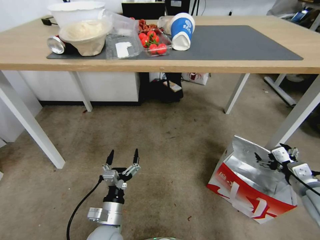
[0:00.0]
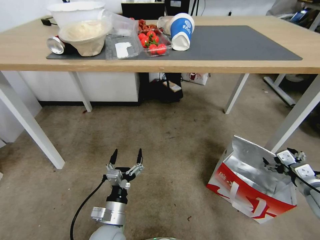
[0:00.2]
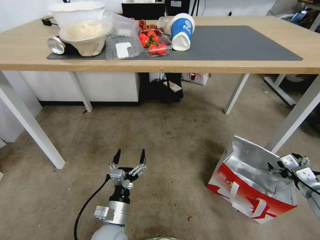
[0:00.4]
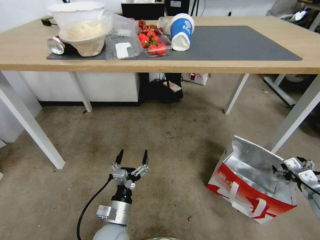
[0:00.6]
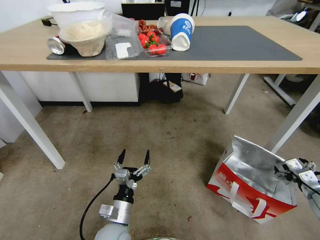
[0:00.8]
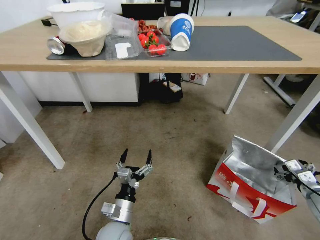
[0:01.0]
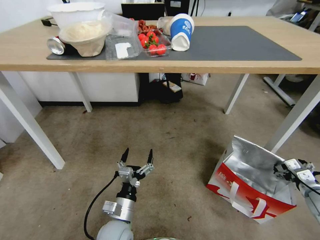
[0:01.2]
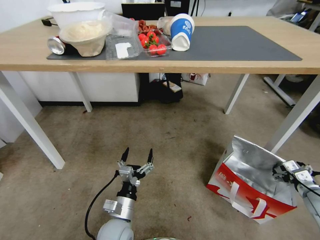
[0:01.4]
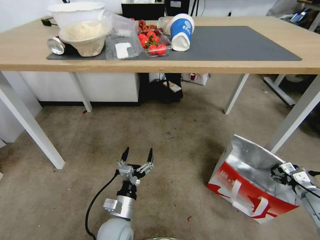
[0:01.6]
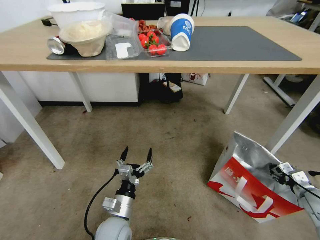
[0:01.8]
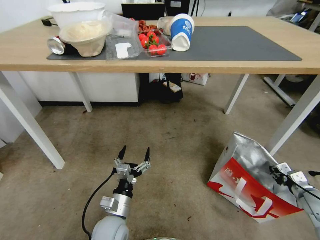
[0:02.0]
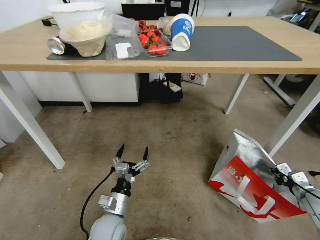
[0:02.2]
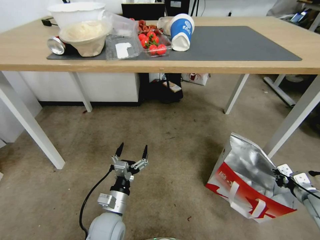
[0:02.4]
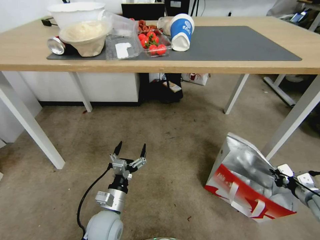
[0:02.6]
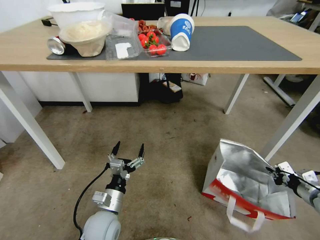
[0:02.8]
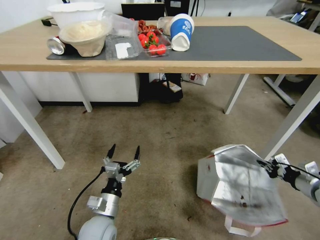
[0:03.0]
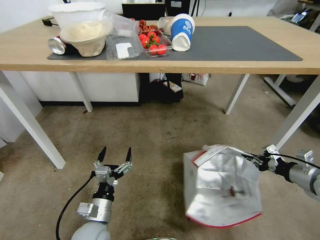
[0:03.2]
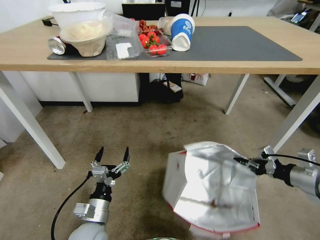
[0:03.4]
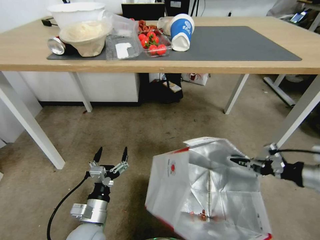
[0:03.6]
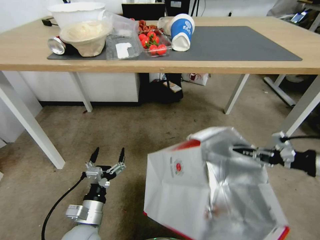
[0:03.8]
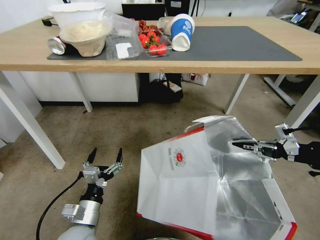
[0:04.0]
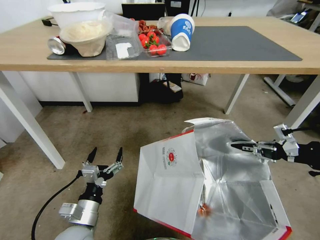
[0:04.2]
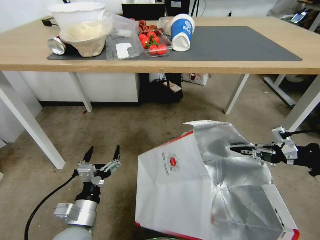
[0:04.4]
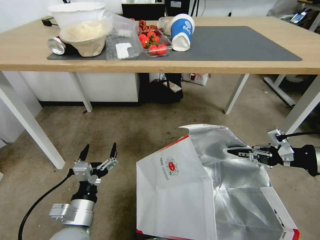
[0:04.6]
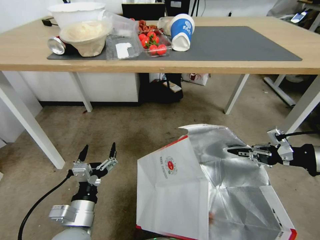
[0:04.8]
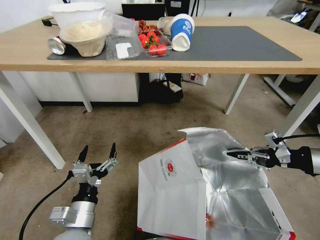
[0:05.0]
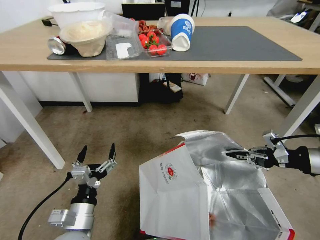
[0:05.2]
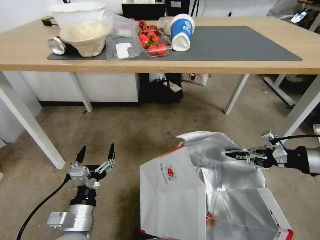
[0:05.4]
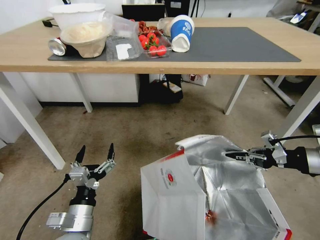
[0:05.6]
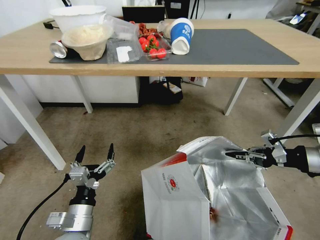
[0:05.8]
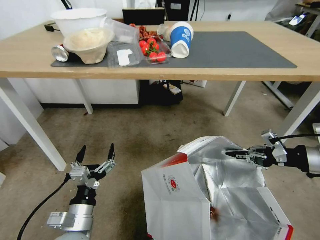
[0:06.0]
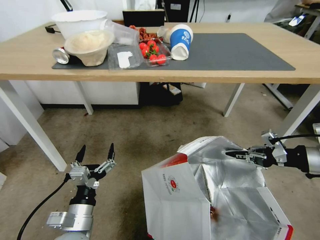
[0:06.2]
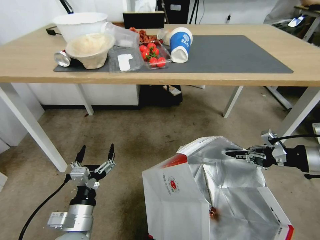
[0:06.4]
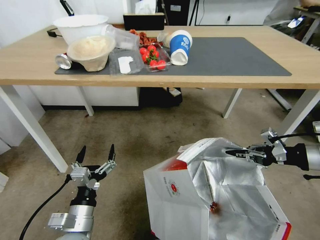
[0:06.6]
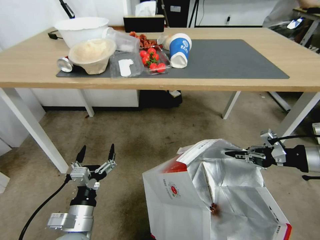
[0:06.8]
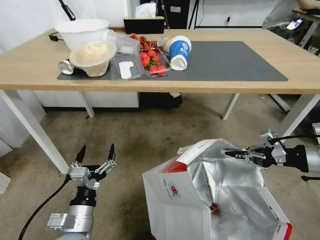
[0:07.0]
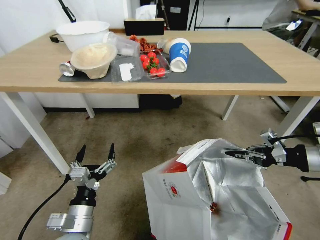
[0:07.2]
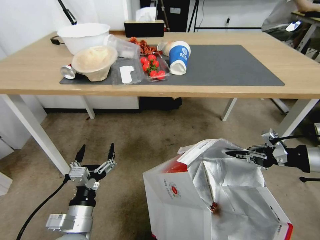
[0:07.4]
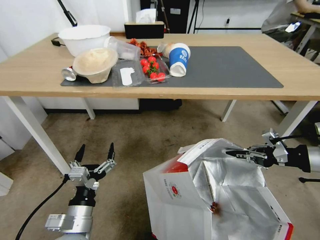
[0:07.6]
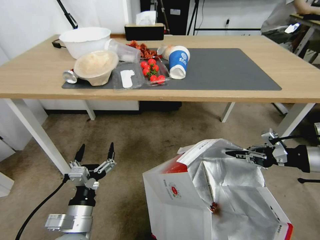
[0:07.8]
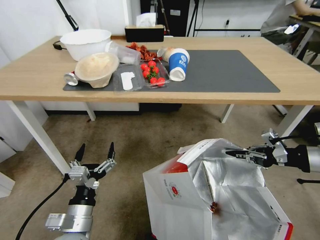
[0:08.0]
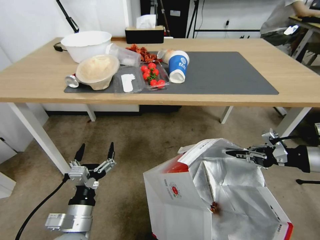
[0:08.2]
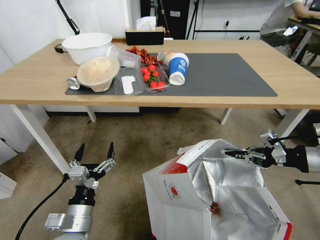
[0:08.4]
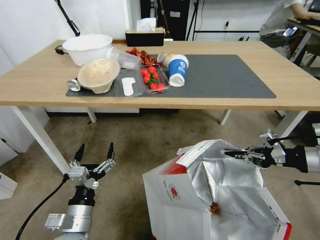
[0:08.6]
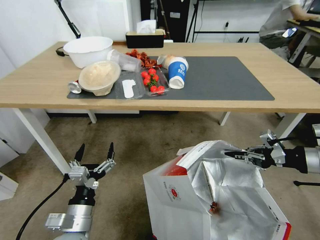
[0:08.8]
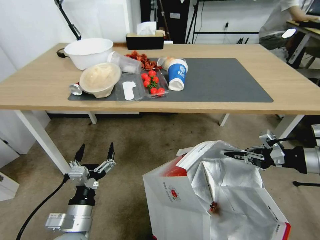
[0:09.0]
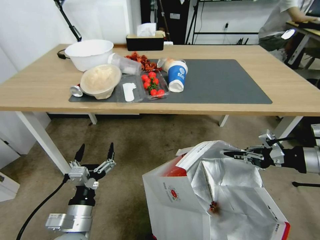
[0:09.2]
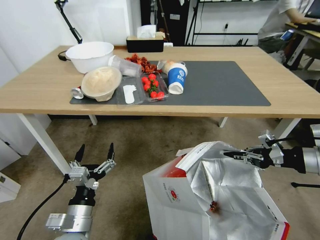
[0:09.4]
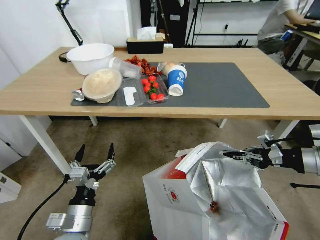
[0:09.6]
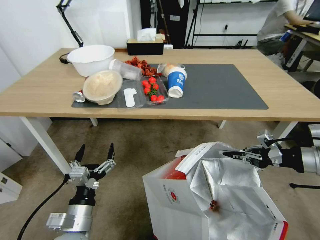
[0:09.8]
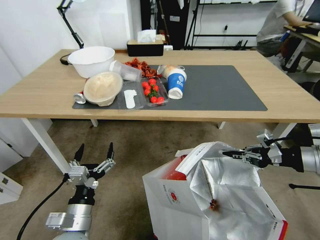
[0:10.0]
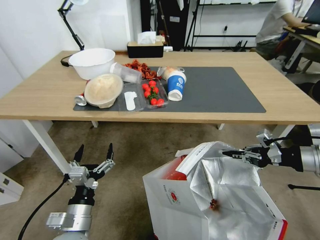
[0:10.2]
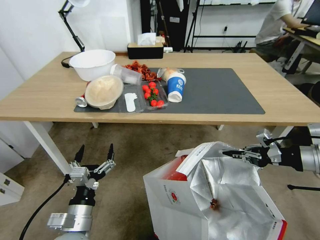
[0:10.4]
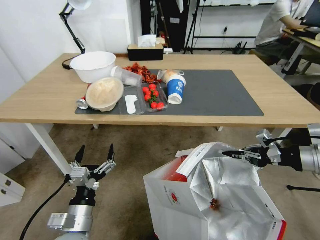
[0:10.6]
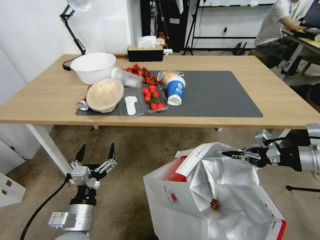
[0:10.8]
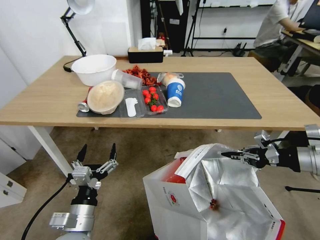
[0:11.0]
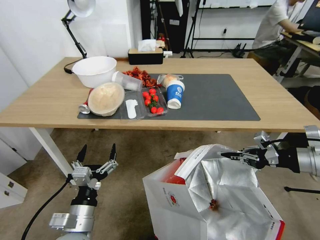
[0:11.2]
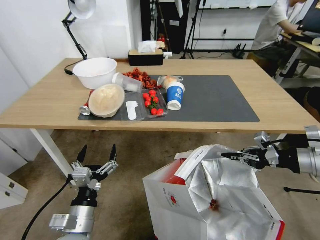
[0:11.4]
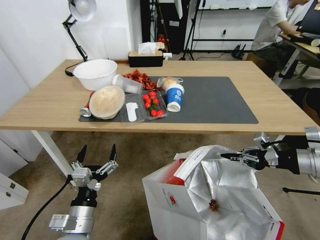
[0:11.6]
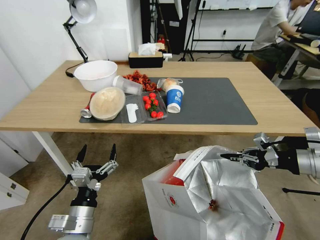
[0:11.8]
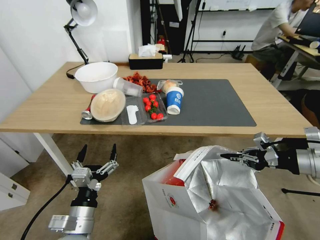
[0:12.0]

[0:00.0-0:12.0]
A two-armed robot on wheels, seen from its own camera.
Task of the whole recording: Pick up the food delivery bag from the floor and place it on the table.
0:00.0 to 0:01.6: The right gripper shifts some 15 cm downward and to the right.
0:01.6 to 0:03.0: The left gripper ends up some 5 cm from where it was, while the right gripper moves upward, some 10 cm, and closes up.
0:03.0 to 0:04.4: The right gripper goes approximately 20 cm upward. The left gripper is displaced upward by roughly 5 cm.

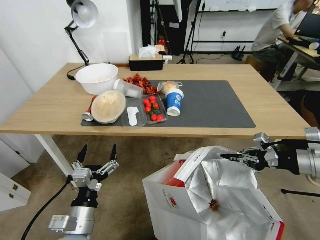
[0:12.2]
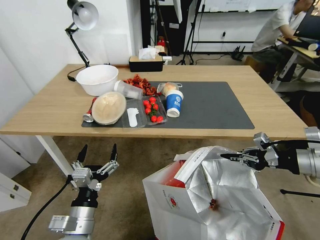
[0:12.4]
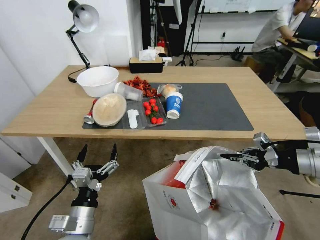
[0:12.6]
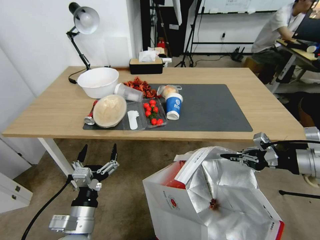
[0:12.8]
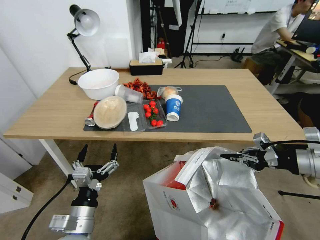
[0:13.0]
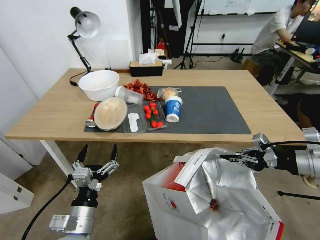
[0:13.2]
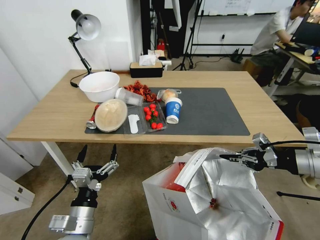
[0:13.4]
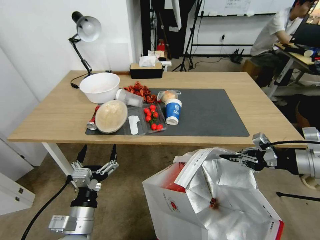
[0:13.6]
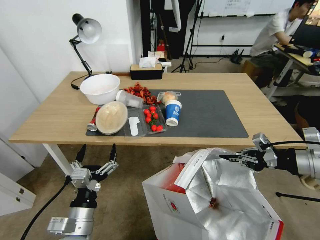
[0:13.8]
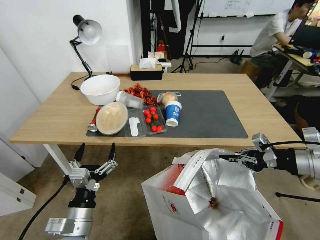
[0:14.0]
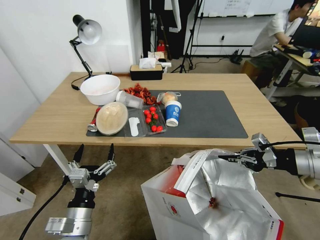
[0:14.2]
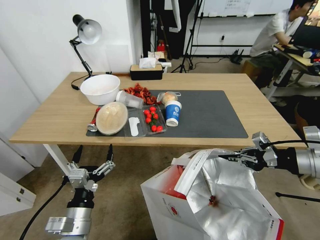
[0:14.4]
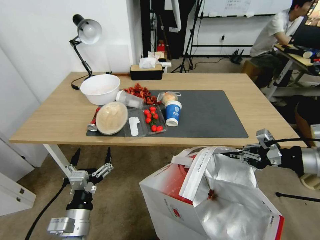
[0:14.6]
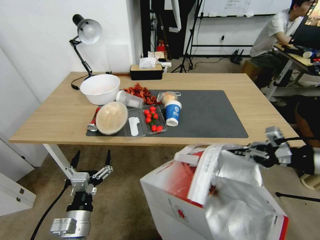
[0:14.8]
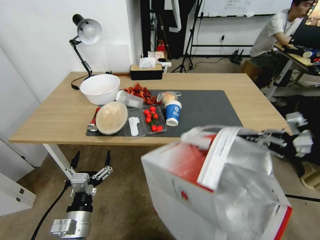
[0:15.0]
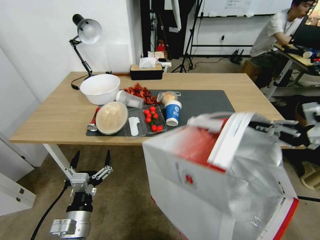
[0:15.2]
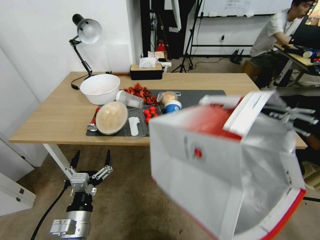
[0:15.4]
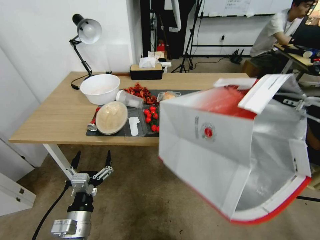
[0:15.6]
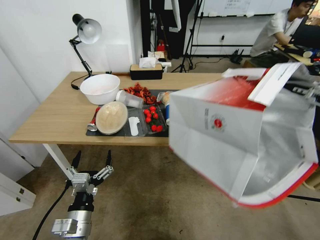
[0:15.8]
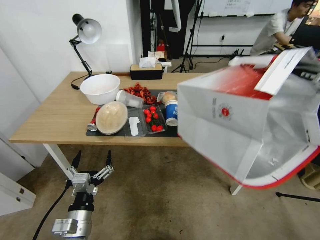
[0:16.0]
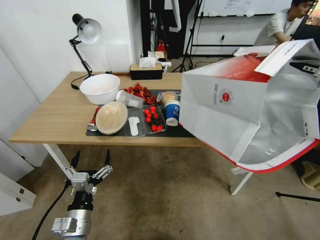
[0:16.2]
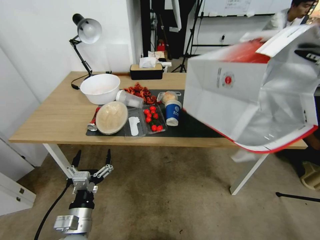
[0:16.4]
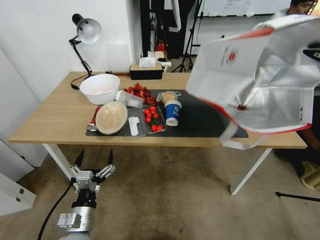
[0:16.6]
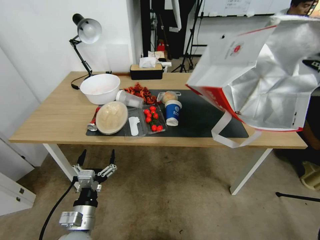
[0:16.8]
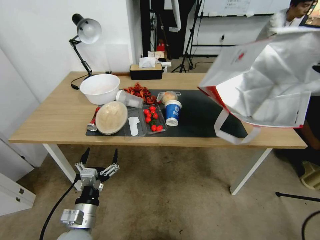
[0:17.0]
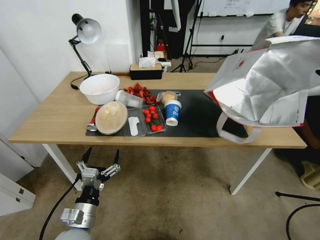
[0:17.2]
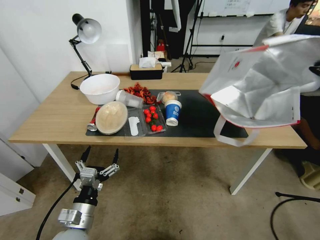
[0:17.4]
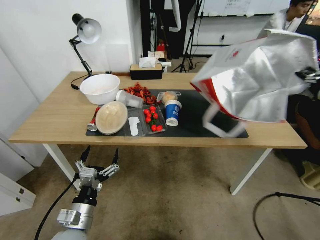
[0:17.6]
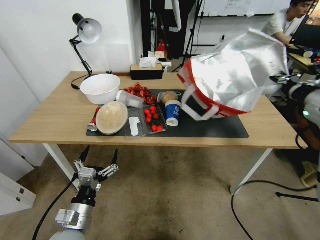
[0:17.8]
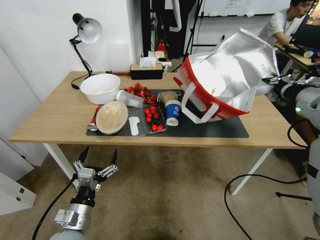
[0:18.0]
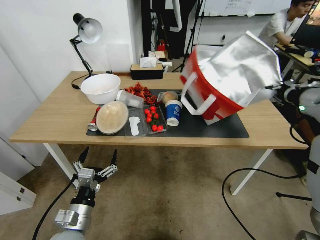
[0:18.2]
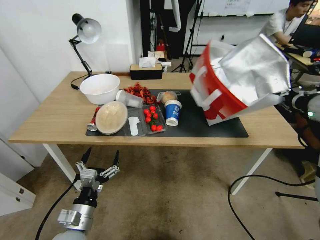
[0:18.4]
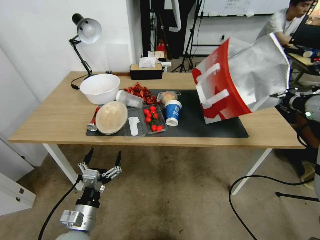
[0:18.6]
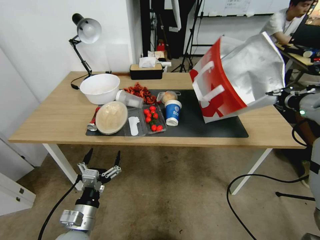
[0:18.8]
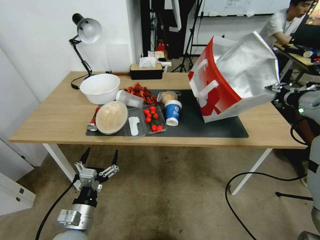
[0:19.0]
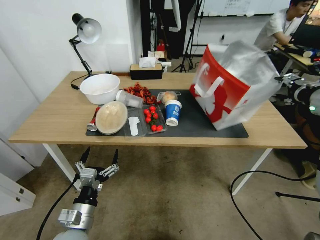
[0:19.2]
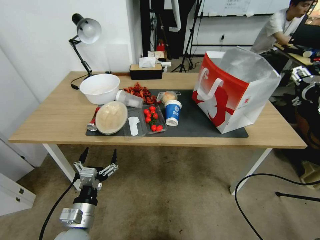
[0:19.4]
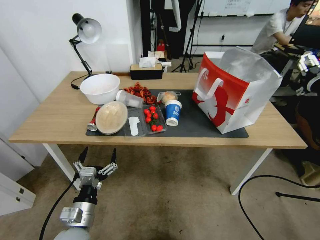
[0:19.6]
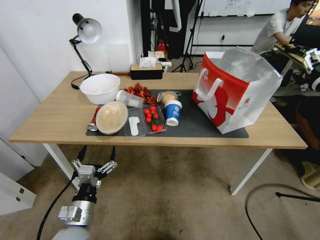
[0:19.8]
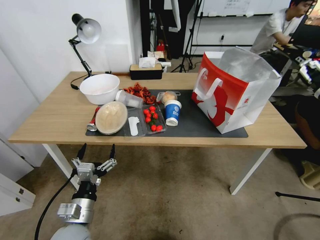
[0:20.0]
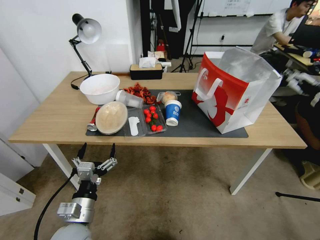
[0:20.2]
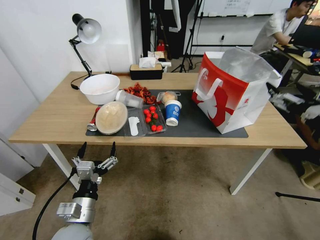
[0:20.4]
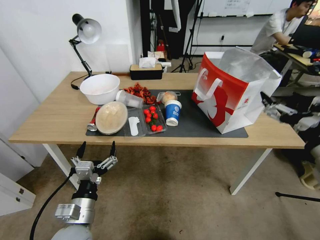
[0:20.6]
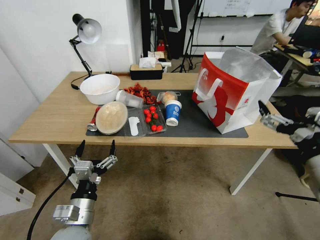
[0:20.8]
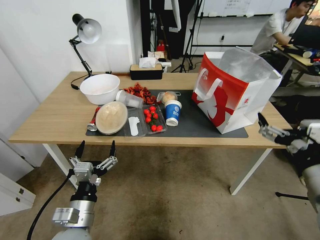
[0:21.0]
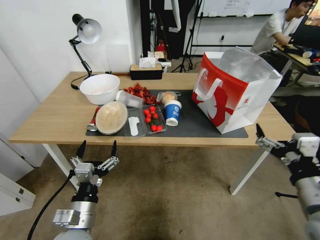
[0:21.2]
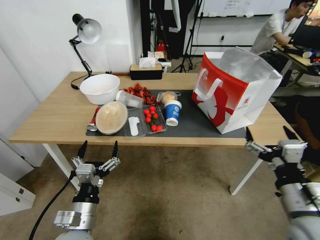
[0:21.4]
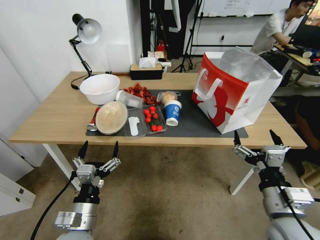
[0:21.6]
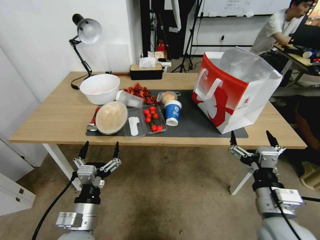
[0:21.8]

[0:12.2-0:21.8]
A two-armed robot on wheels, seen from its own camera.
Task of the whole recording: Pick up the food delivery bag from the floor and place it on the table.
0:13.8 to 0:15.4: The right gripper shifts some 10 cm upward and to the right.
0:17.0 to 0:18.6: The right gripper goes about 10 cm forward and downward.
0:18.6 to 0:20.2: The right gripper shifts roughly 10 cm backward, and opens.
0:20.2 to 0:21.8: The right gripper shifts roughly 25 cm downward, to the left and backward.

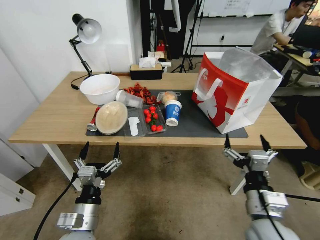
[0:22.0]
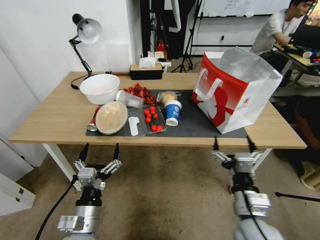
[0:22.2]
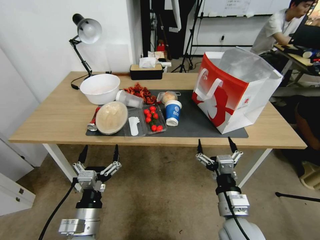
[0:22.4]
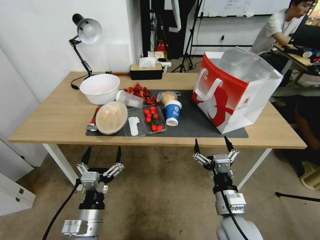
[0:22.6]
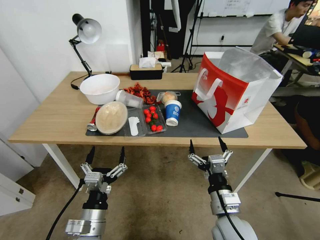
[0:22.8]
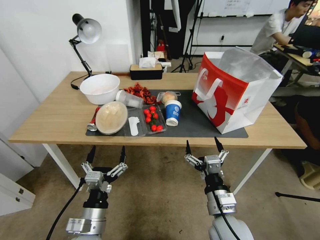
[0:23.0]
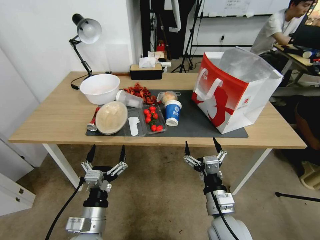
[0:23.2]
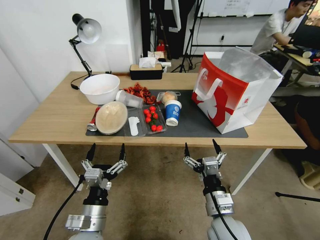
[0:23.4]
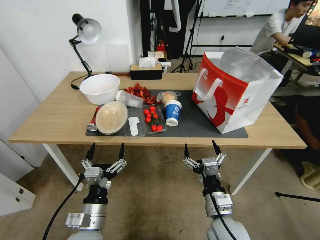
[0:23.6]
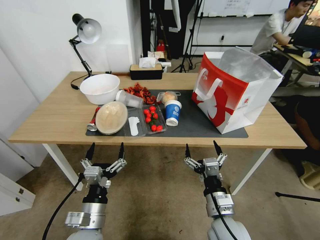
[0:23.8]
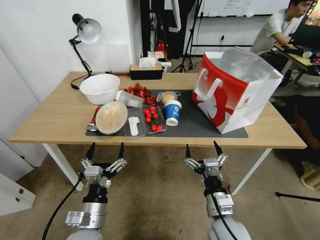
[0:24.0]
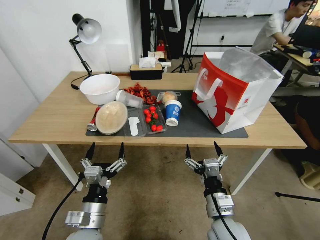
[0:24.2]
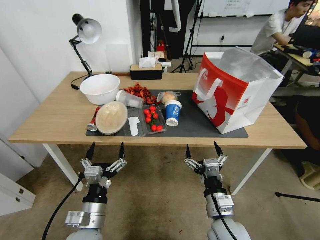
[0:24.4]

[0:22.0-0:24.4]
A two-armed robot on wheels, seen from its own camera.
Task of the whole recording: Pick up the food delivery bag from the floor and place it on the table.
0:22.0 to 0:23.2: The right gripper heads to the left and downward, covering some 10 cm.
0:23.2 to 0:24.4: The two grippers keep their place.
